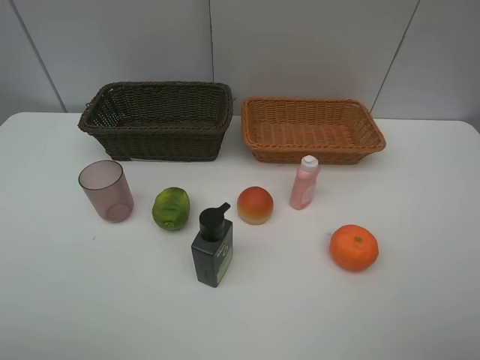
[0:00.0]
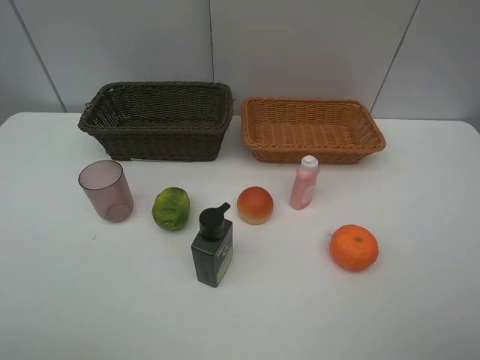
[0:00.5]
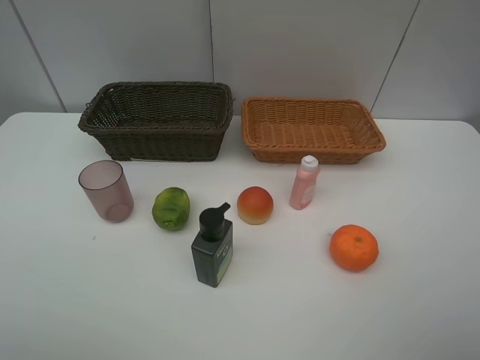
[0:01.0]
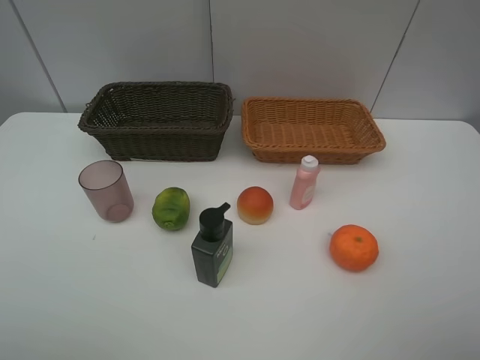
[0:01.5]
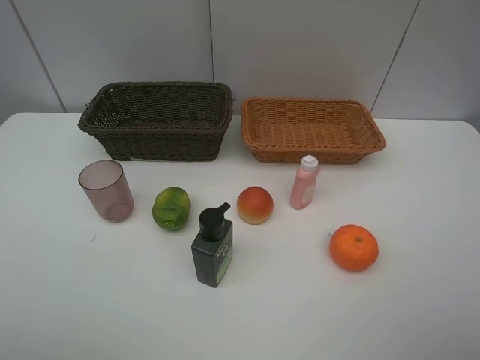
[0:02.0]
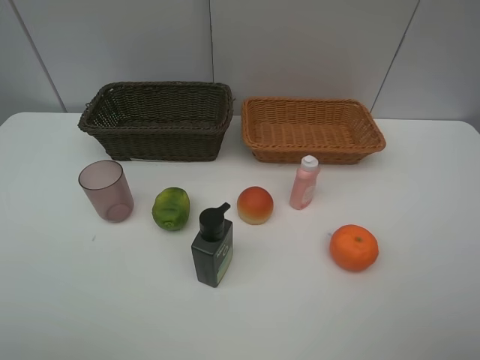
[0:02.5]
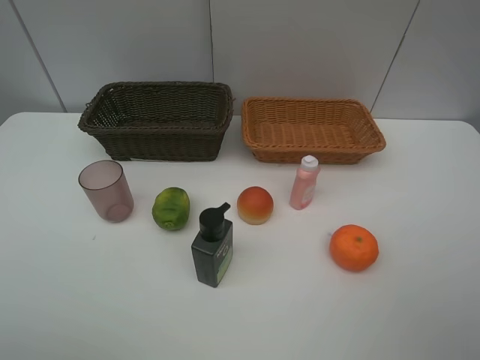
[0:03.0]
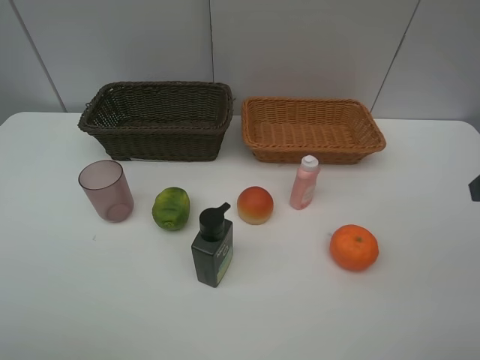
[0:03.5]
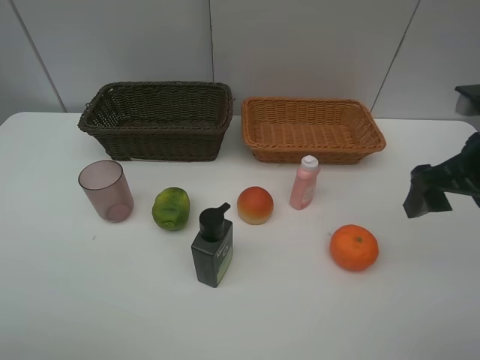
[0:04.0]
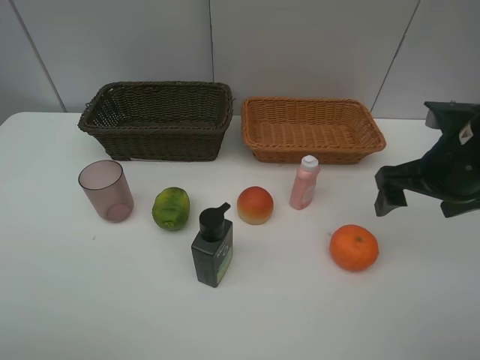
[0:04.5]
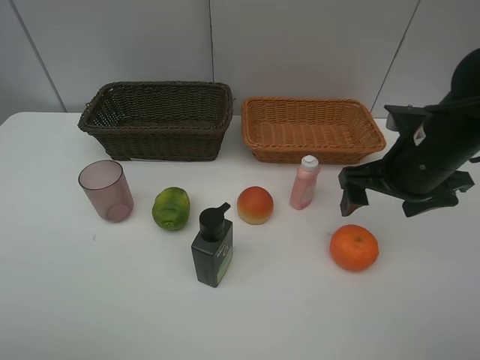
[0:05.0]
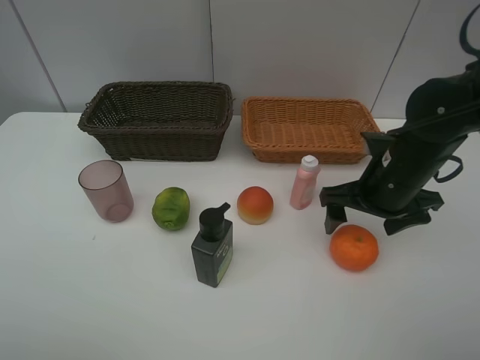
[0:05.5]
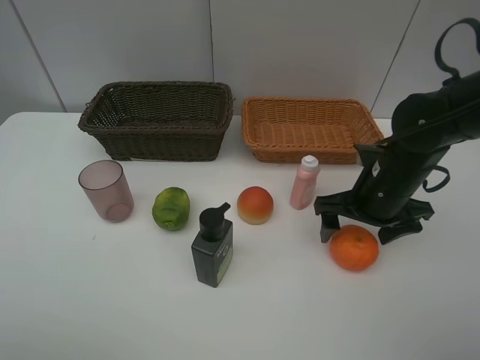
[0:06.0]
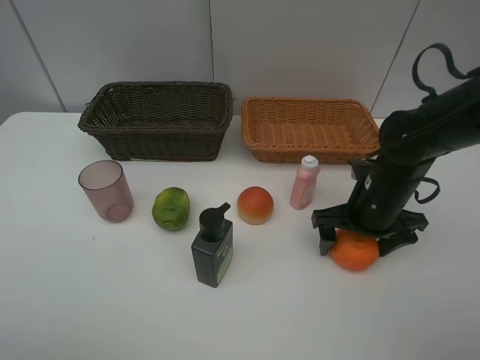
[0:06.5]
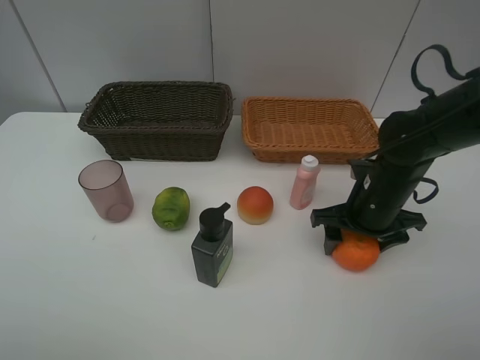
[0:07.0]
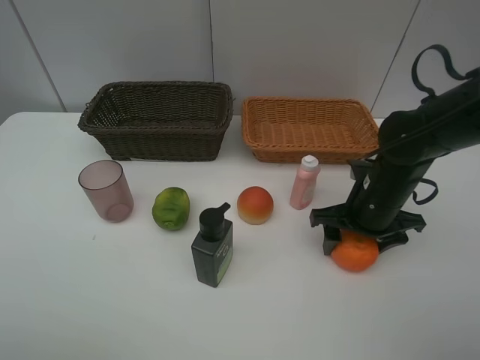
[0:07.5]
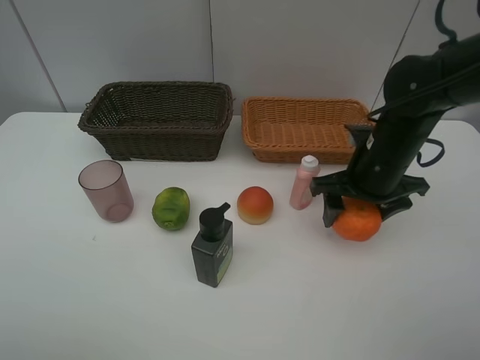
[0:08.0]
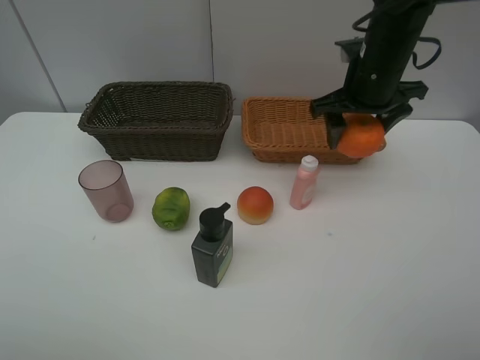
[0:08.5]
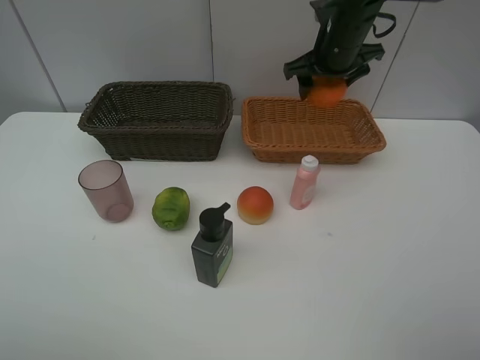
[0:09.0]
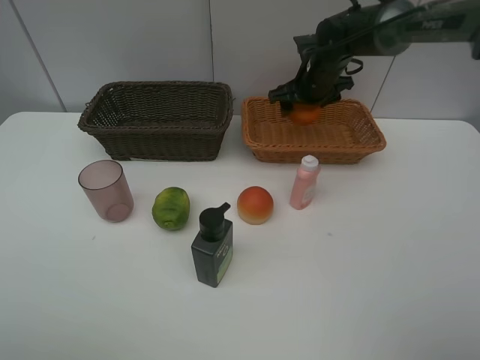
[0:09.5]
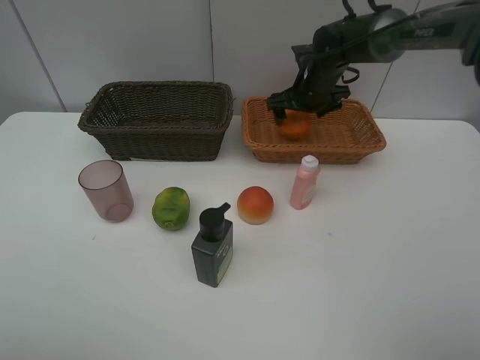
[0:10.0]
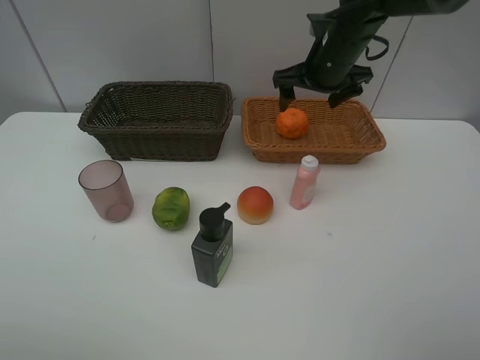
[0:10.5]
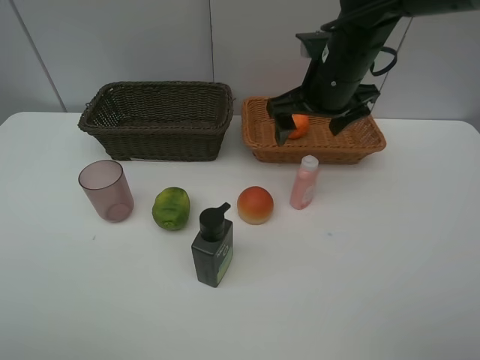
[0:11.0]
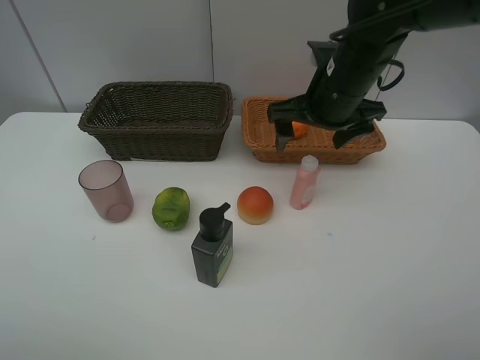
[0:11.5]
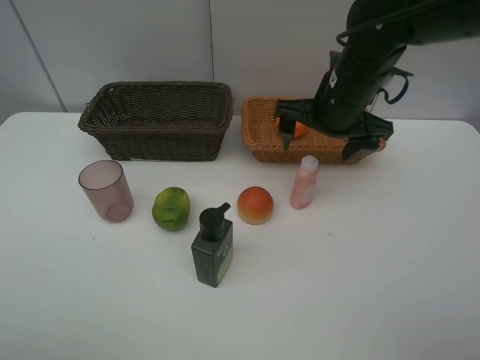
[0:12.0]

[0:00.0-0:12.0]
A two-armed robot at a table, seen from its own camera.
Task of the whole recording: place multiple objects separately in different baskets.
0.0 to 2.0 s: The two grippers keep their place.
2.0 to 4.0 s: The right gripper travels forward by approximately 20 cm.
4.0 to 6.0 s: The right gripper is displaced downward, to the left and forward by some 15 cm.
6.0 to 8.0 s: The grippers move only a little.
8.0 to 10.0 s: The right gripper heads forward, covering roughly 20 cm.
10.0 to 12.0 s: The right gripper moves backward, about 15 cm.

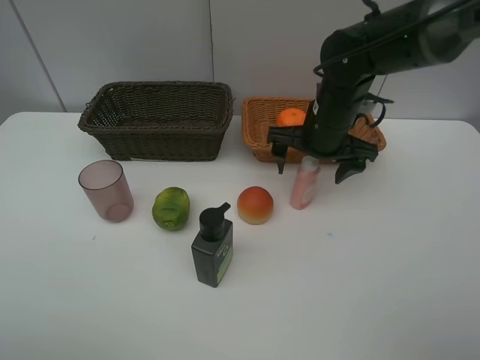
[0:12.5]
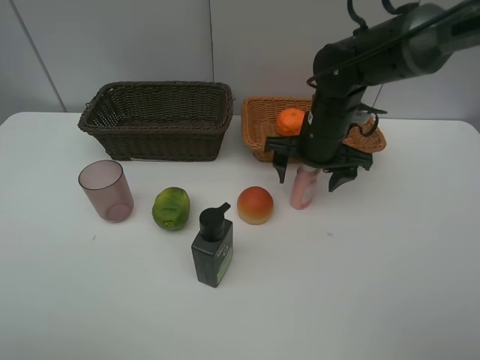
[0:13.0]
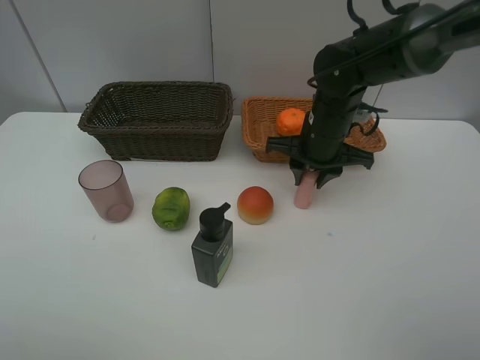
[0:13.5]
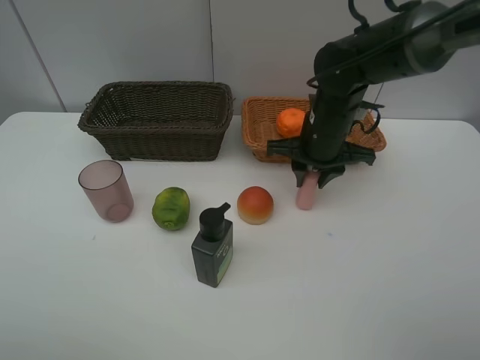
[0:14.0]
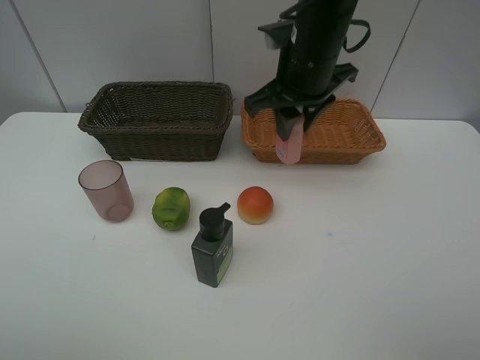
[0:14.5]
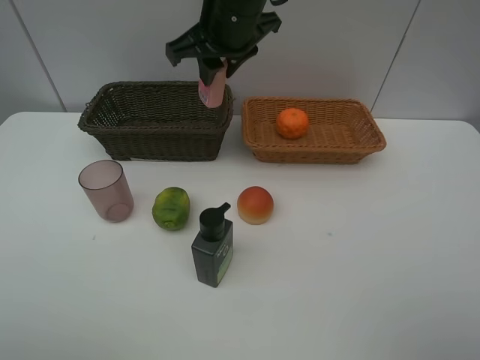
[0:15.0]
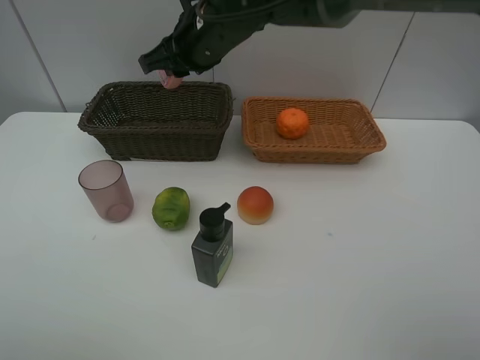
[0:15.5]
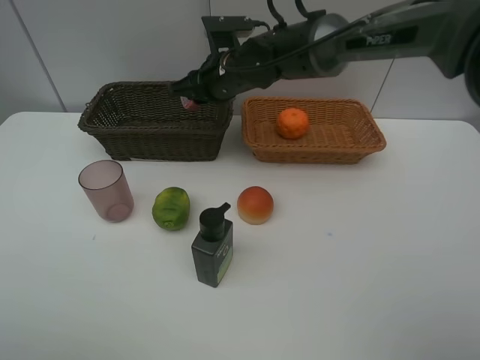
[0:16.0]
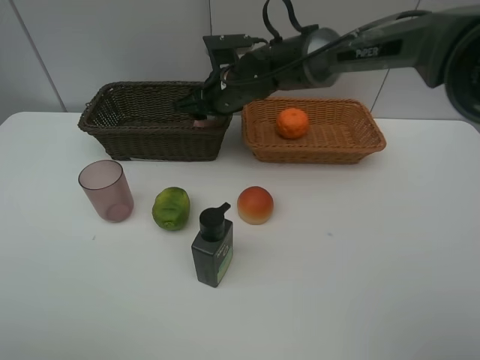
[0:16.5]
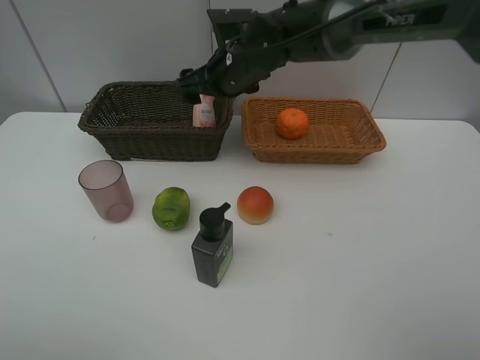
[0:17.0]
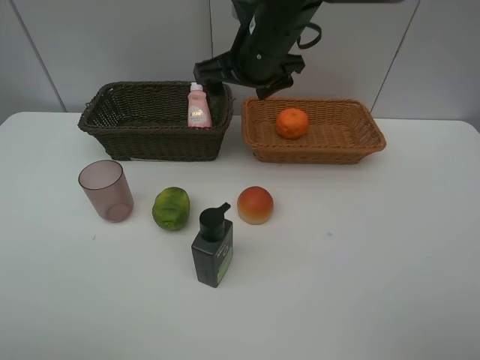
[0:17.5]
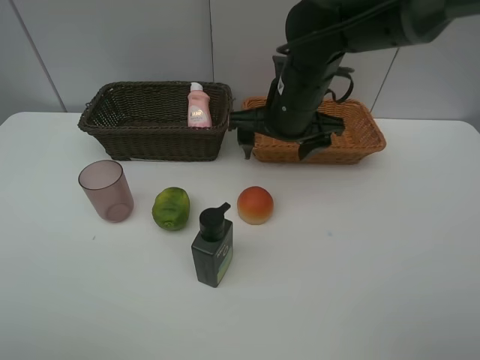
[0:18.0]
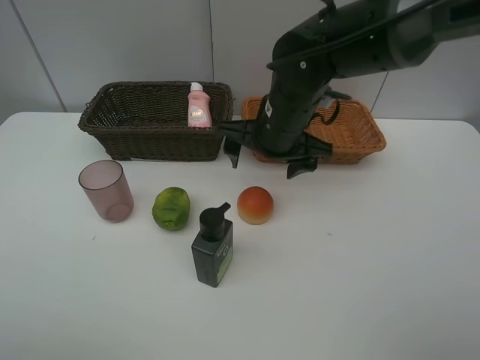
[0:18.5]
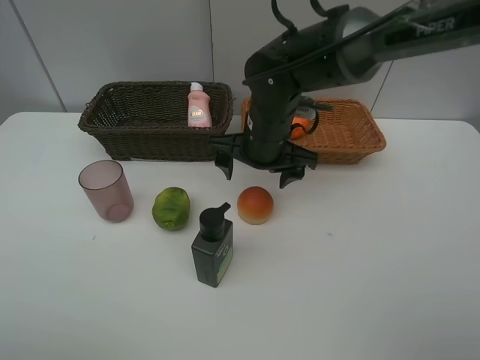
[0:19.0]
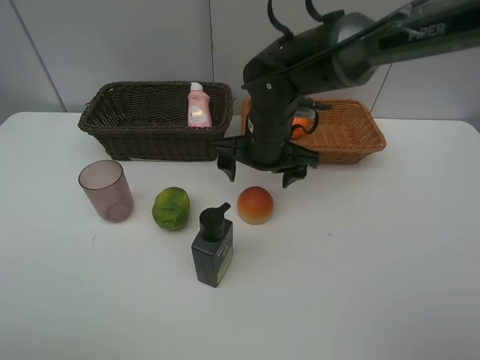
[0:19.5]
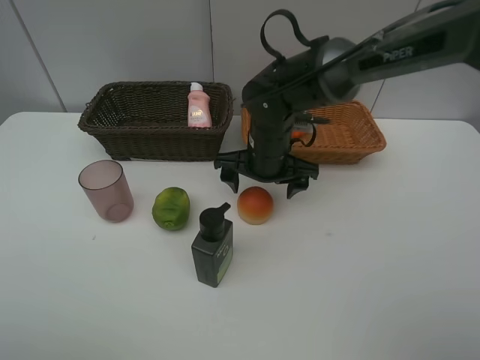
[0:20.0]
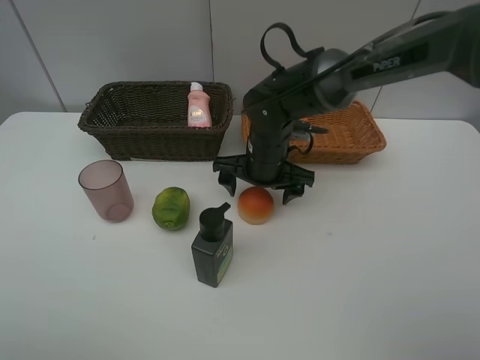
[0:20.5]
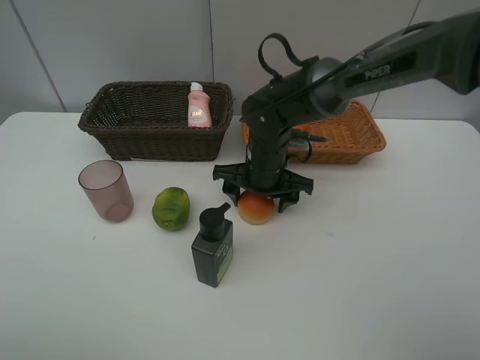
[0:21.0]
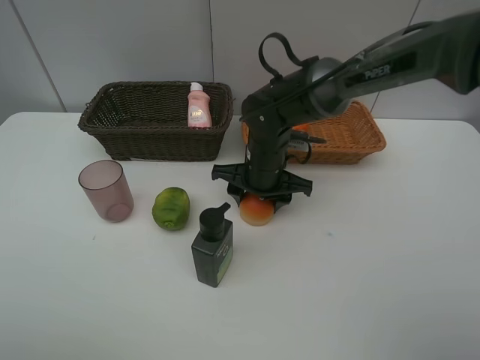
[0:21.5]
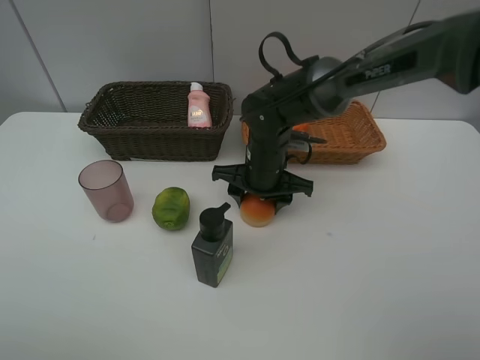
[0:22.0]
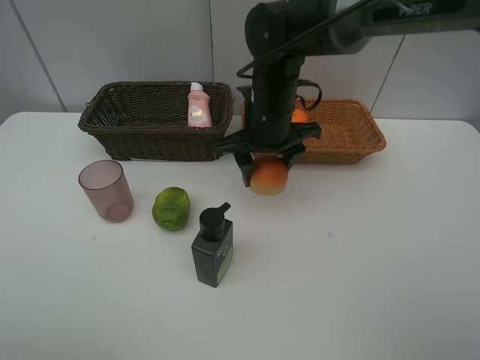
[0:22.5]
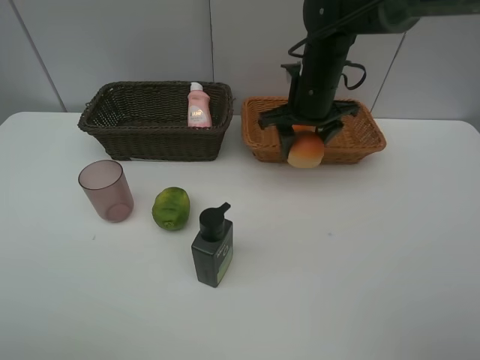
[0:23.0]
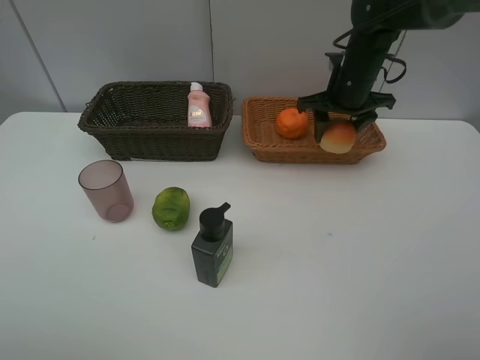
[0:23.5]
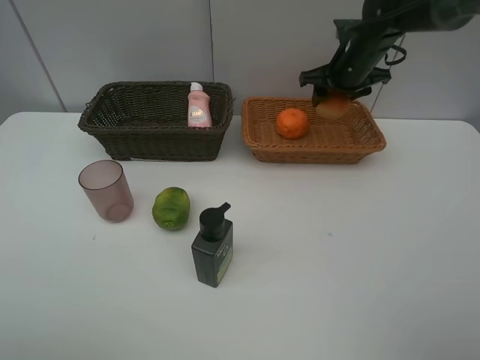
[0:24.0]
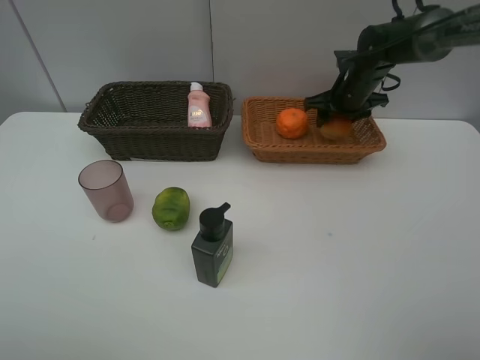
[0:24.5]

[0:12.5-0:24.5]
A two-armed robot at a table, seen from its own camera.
Task of the whole recording: place multiple objects separately in different baskets.
12.5 to 14.5 s: The right gripper shifts some 10 cm upward and to the left, and closes.
14.5 to 16.5 s: The right gripper travels downward, to the left and forward by approximately 15 cm, and opens its fingers.
16.5 to 18.5 s: The right gripper heads backward and to the right, covering about 10 cm, and opens its fingers.
18.5 to 20.5 s: The right gripper goes roughly 10 cm downward.
20.5 to 22.5 s: The right gripper moves upward, approximately 5 cm, and closes.
22.5 to 24.5 s: The right gripper shifts roughly 20 cm to the right and forward.

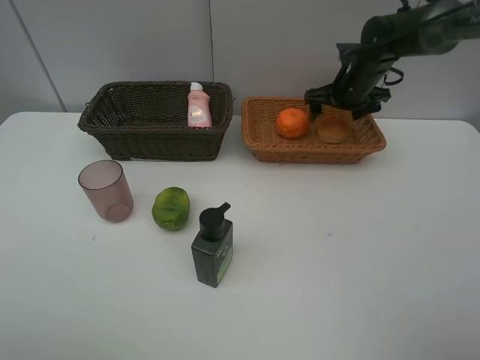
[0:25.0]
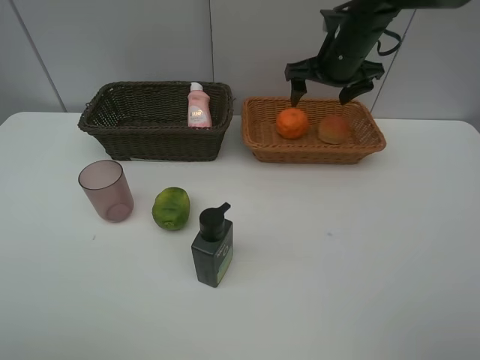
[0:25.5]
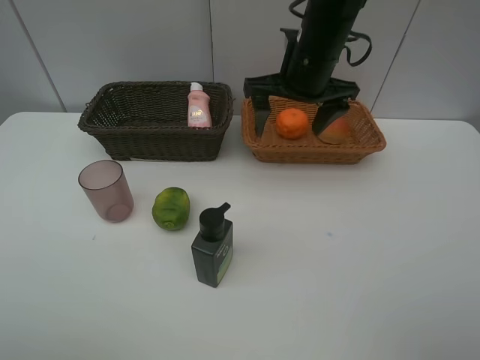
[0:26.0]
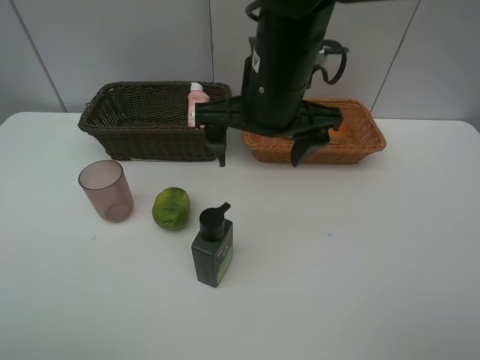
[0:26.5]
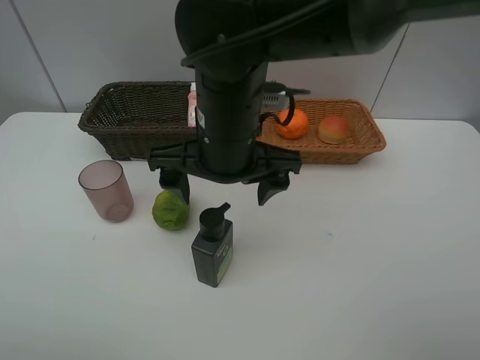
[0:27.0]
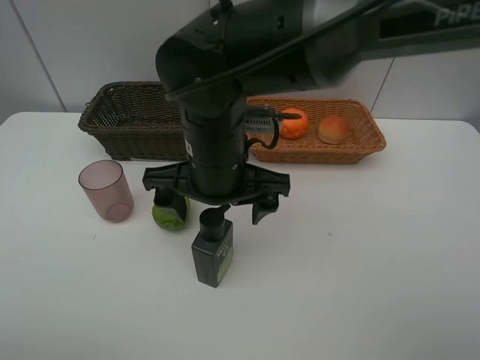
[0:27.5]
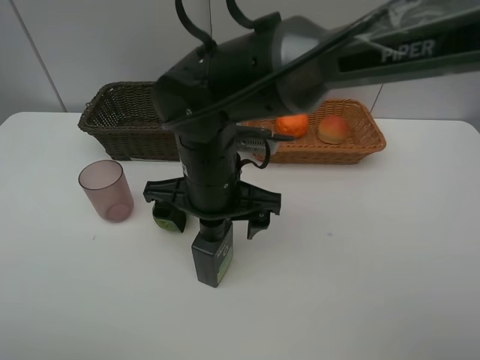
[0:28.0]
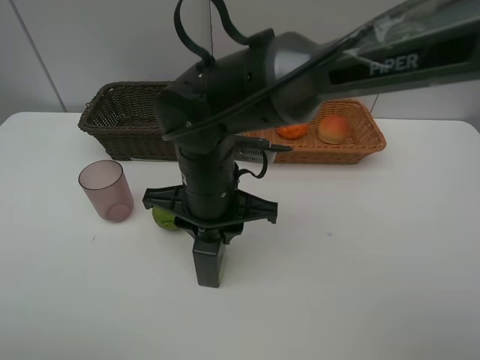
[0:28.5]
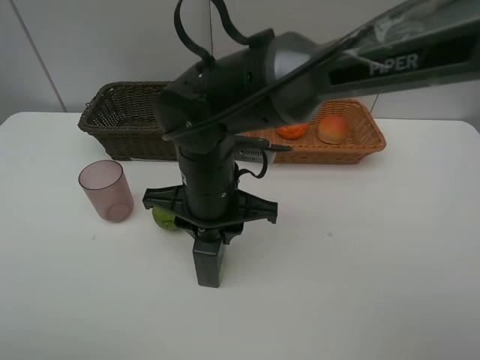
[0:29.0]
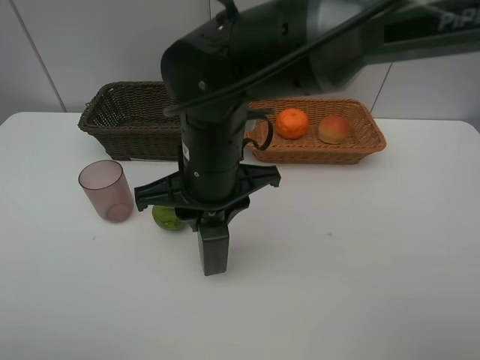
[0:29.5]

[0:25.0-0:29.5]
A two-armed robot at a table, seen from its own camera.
Task of the whole recording: place multiple objects separately in different baskets.
25.0 to 27.0 s: The right gripper shifts approximately 35 cm backward and to the left.
27.0 to 29.5 s: The right gripper closes up.
